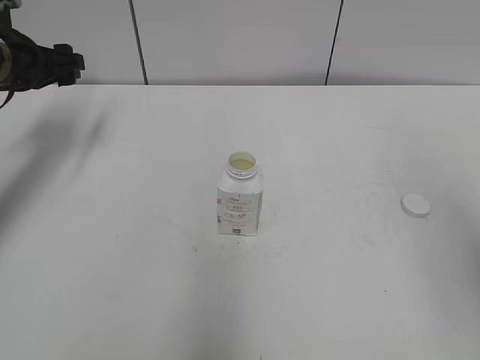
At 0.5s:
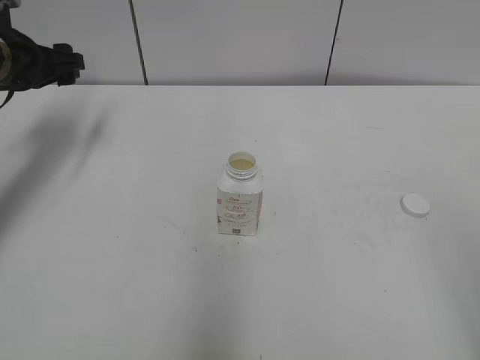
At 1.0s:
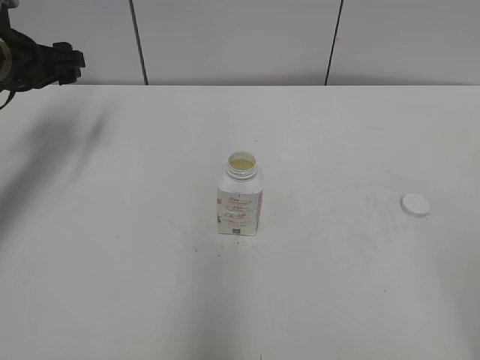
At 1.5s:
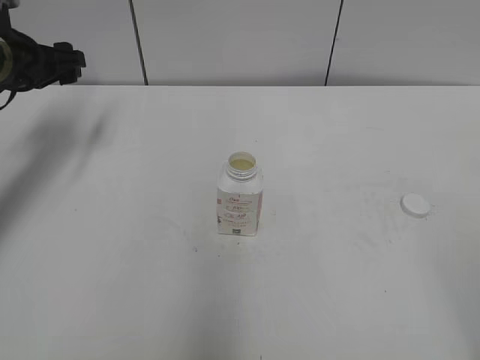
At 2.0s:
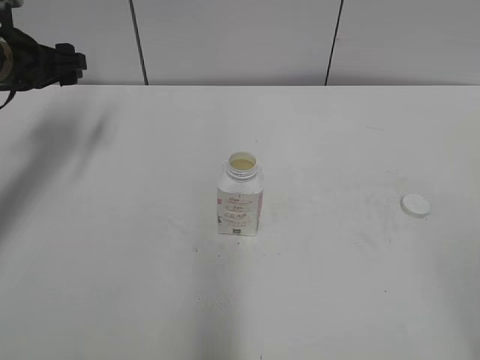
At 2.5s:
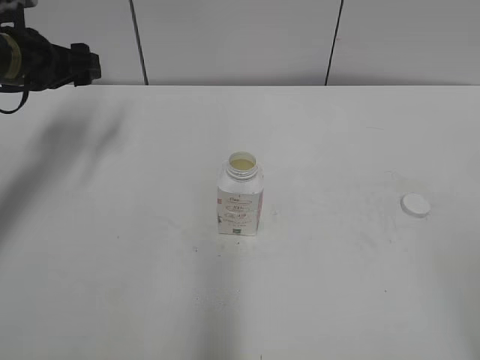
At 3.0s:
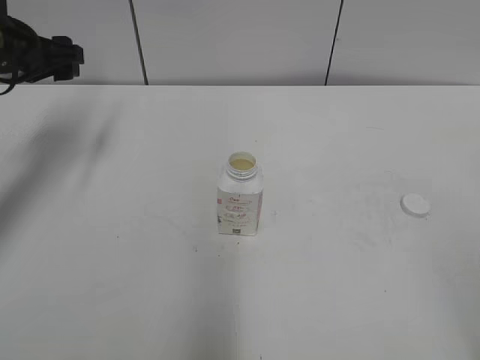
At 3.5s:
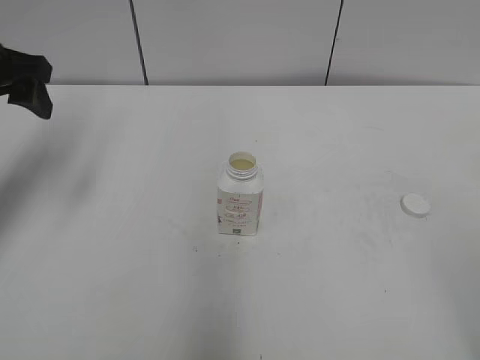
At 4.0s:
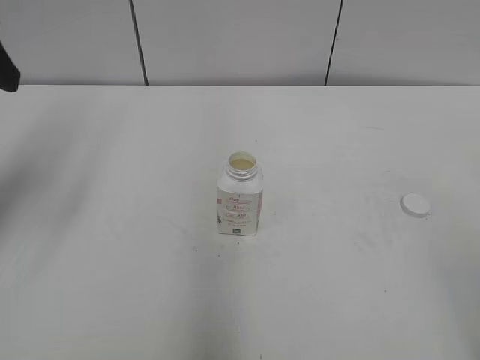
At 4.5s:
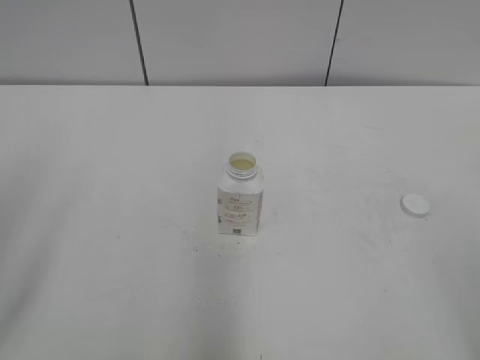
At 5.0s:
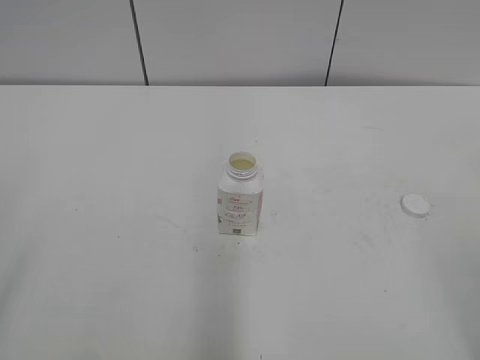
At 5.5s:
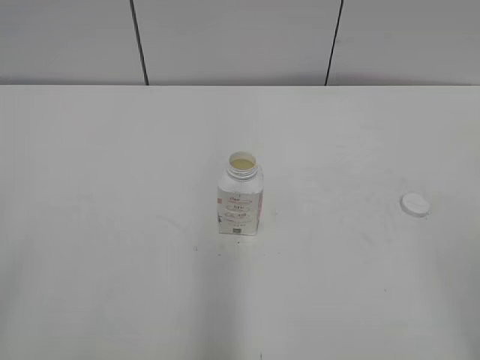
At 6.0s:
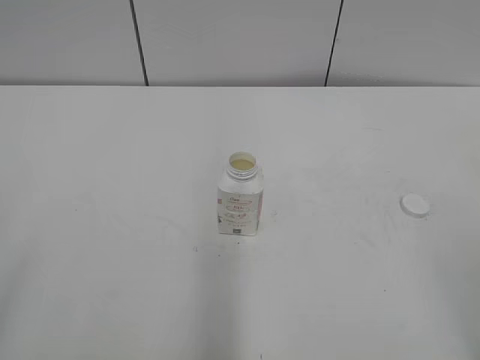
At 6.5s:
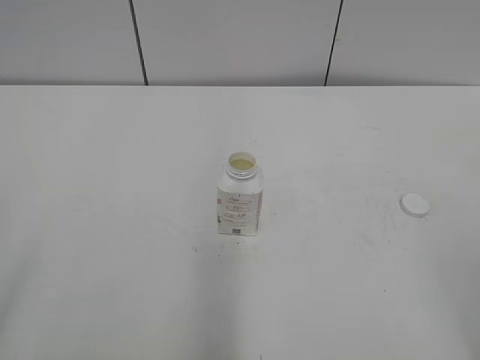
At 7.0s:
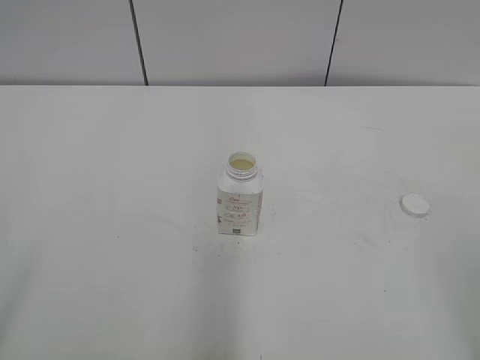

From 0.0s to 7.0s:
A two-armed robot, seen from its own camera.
From 2.0s to 3.5s: The left gripper heads backward and upward, covering some 10 cm.
From 3.5s to 5.0s: The left gripper is displaced backward by approximately 30 cm.
